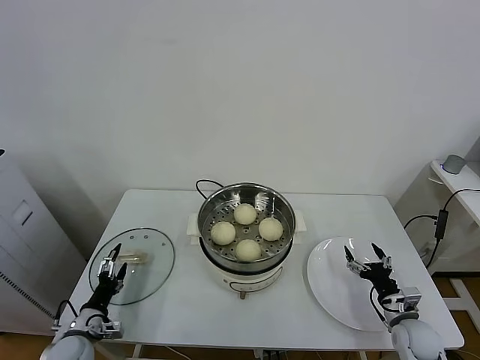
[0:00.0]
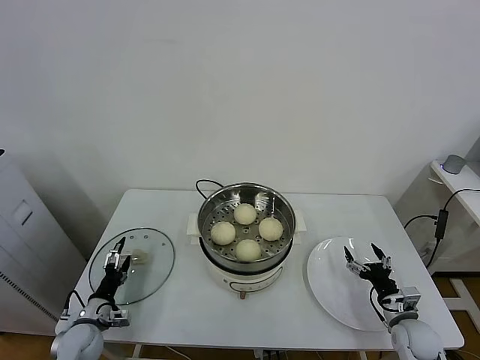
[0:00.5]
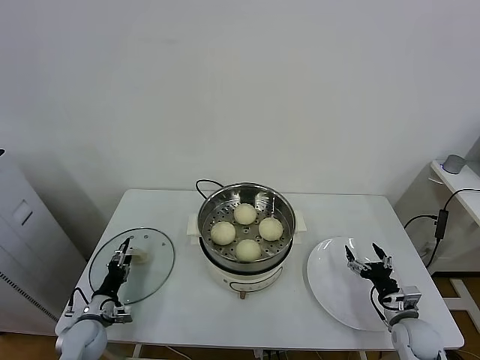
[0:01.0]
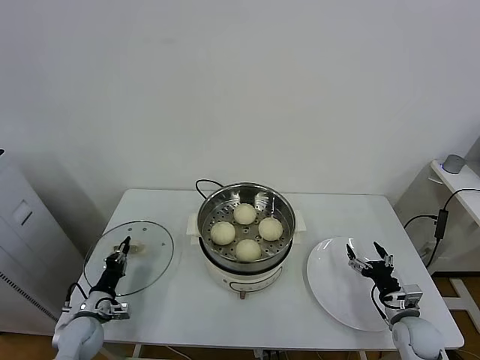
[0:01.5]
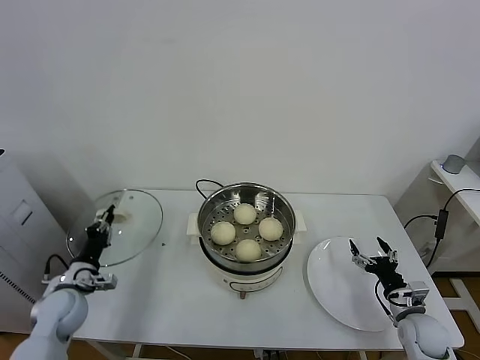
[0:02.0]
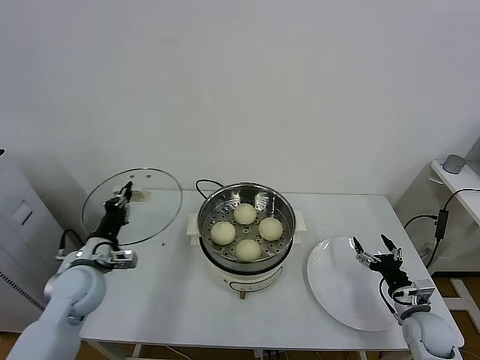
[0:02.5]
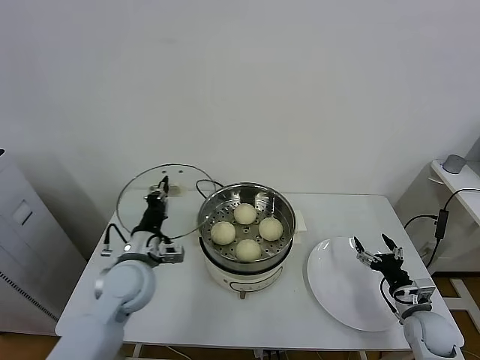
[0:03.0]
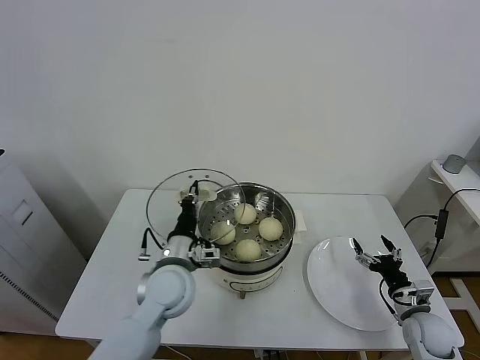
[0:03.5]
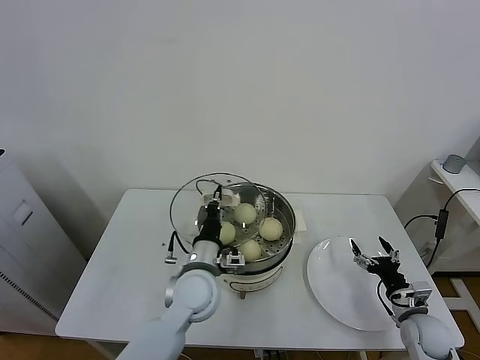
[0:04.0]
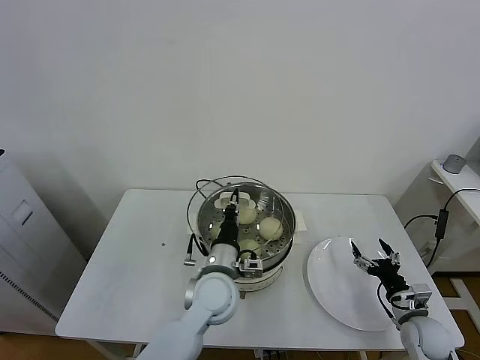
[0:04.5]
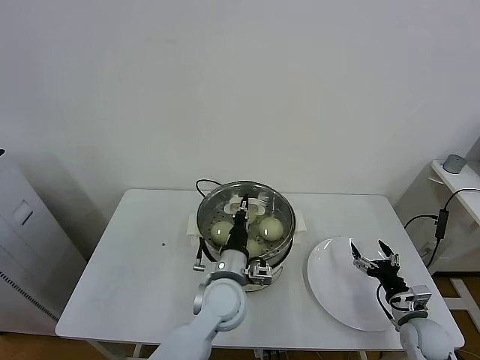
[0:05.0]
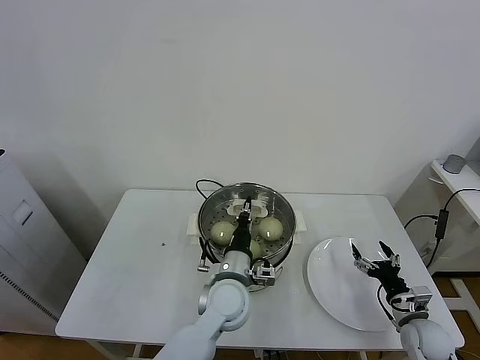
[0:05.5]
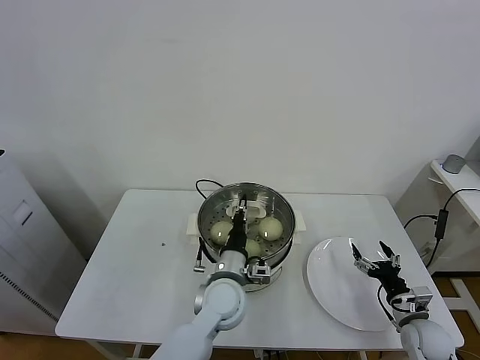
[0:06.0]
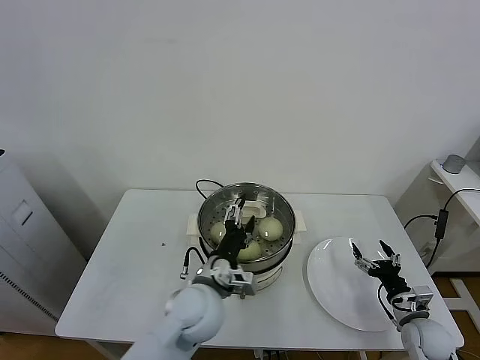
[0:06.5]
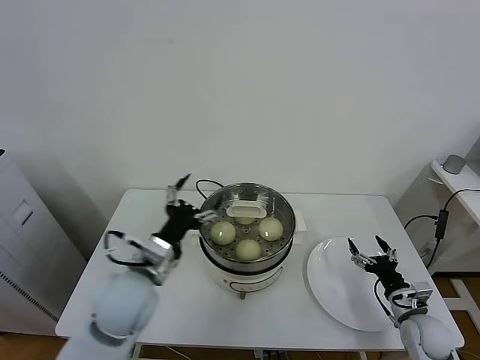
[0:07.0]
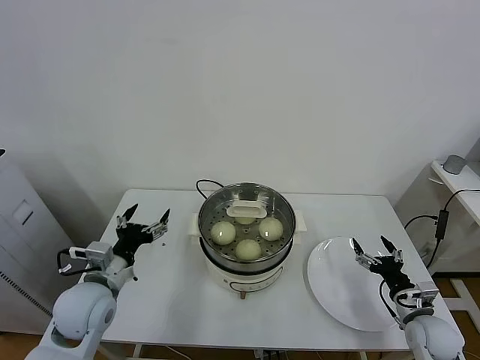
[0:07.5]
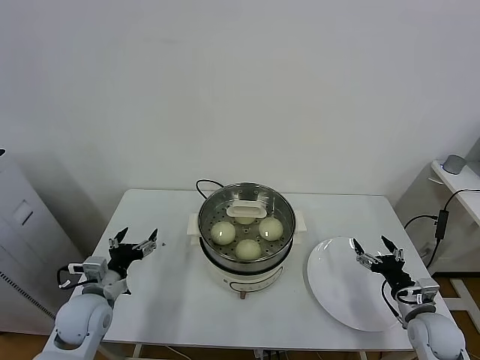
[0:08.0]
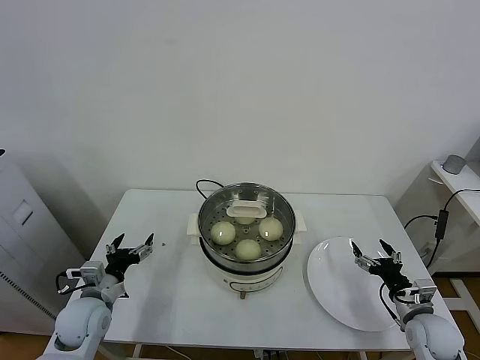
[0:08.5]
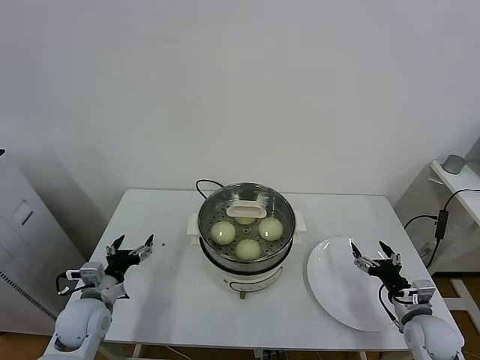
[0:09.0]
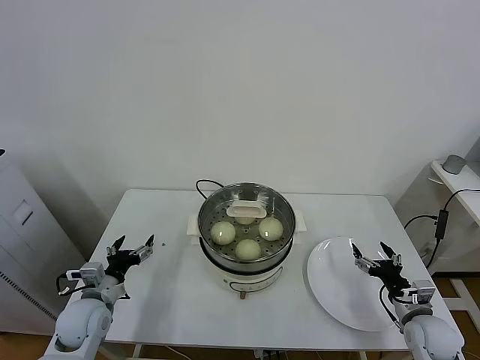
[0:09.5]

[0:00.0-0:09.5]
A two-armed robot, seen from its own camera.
Task of the whole recording: take steamed baozi put them in steamer.
Step, 0:02.0 to 0:06.0: Place the pot lid on the steamer with left gripper.
0:00.0 to 0:02.0: The left gripper travels upward and forward by about 10 cm, and closes.
0:02.0 to 0:04.0: The left gripper travels to the right by roughly 30 cm.
0:04.0 to 0:05.5: The left gripper moves to the right, some 5 cm.
0:05.5 to 0:07.5: The left gripper heads to the left, covering about 25 cm, and opens.
0:07.5 to 0:09.5: The left gripper is displaced downward and to the left by about 10 cm.

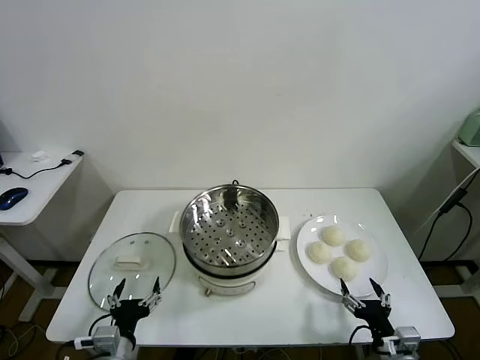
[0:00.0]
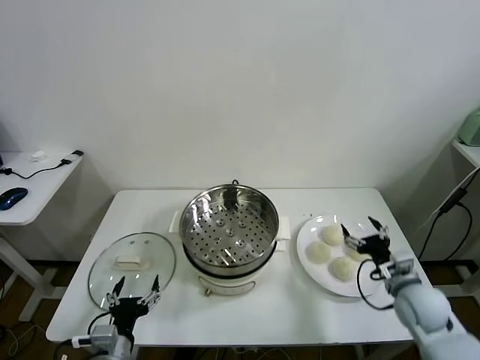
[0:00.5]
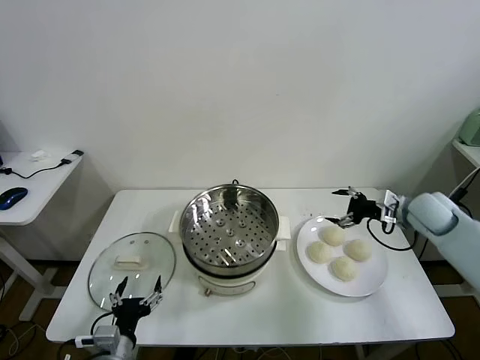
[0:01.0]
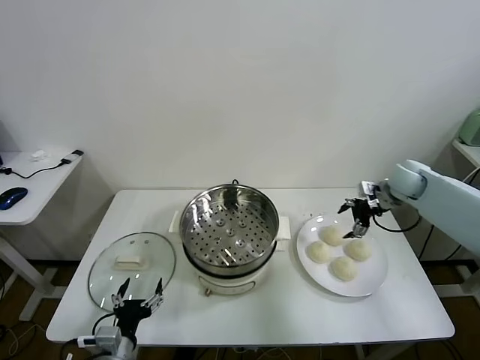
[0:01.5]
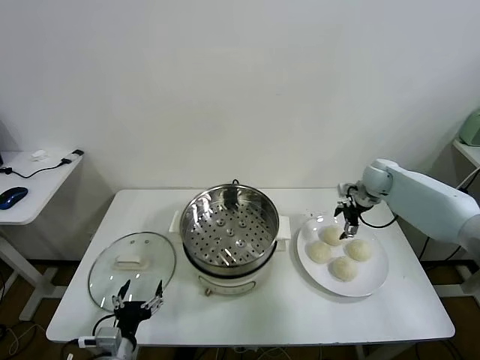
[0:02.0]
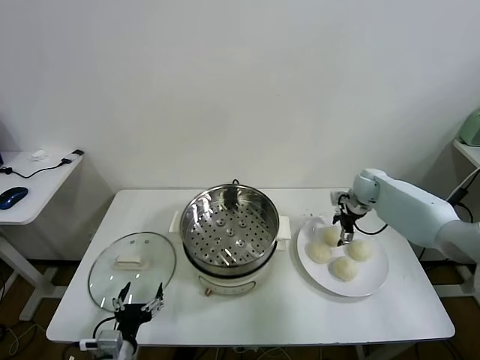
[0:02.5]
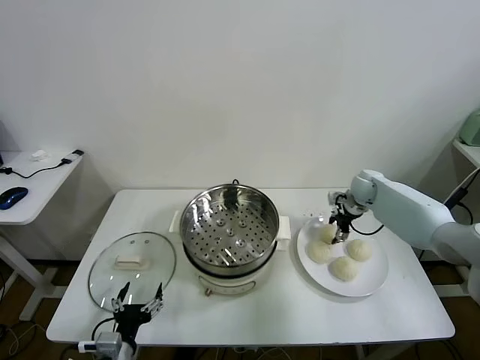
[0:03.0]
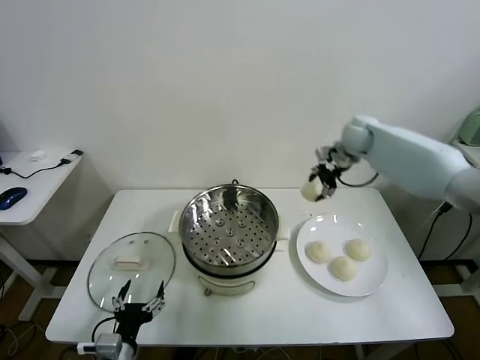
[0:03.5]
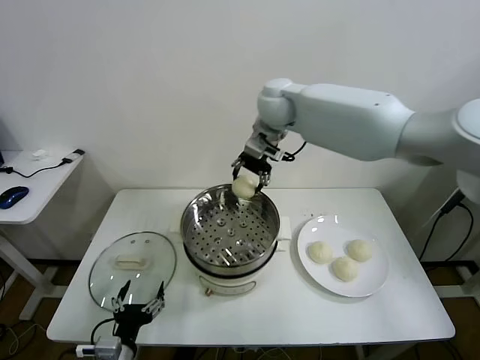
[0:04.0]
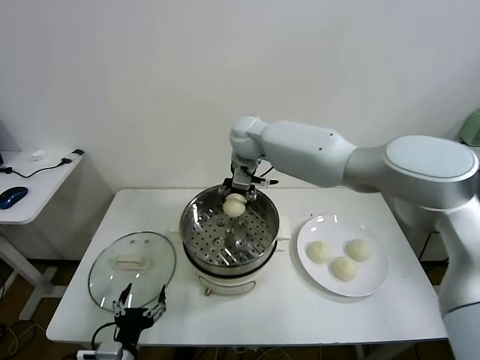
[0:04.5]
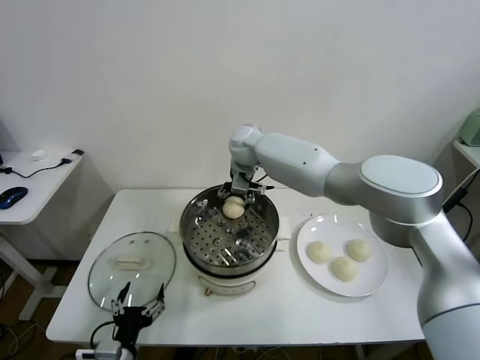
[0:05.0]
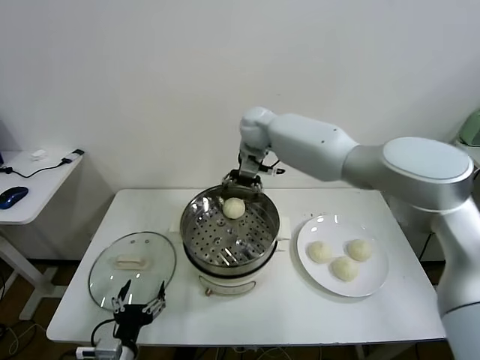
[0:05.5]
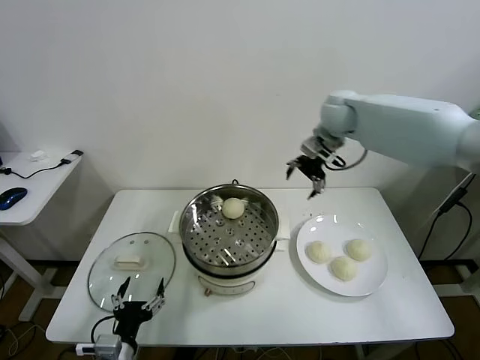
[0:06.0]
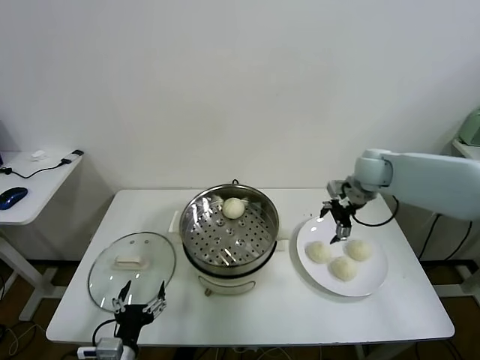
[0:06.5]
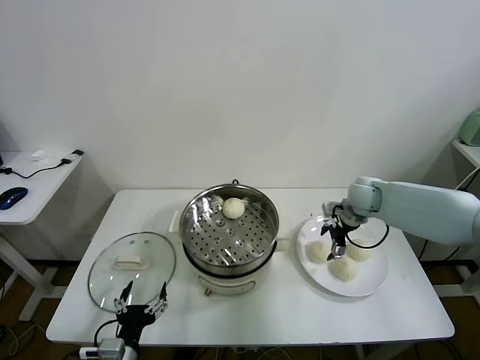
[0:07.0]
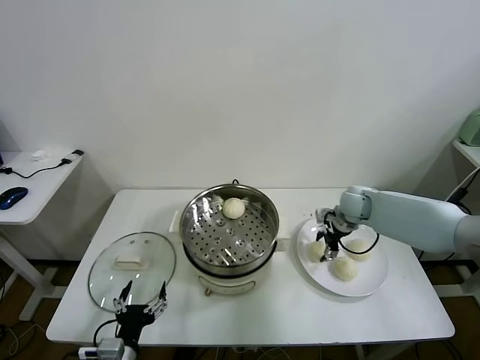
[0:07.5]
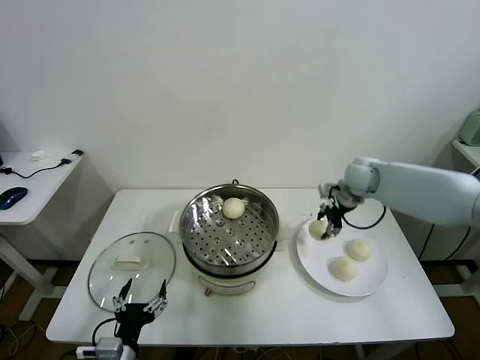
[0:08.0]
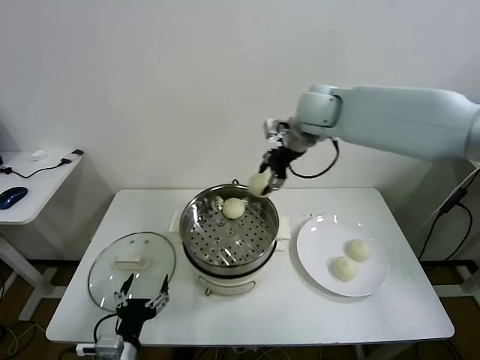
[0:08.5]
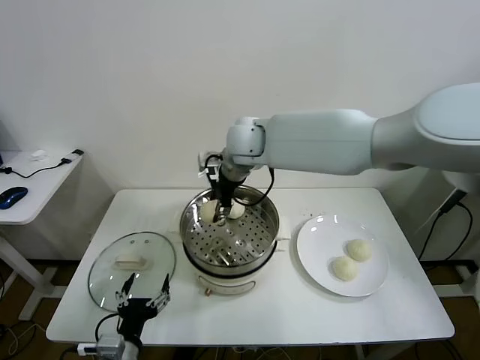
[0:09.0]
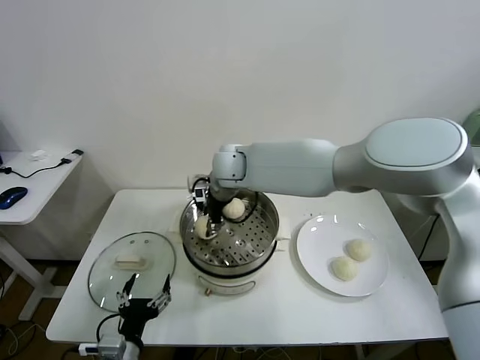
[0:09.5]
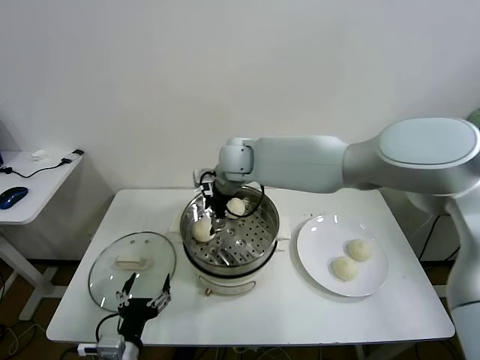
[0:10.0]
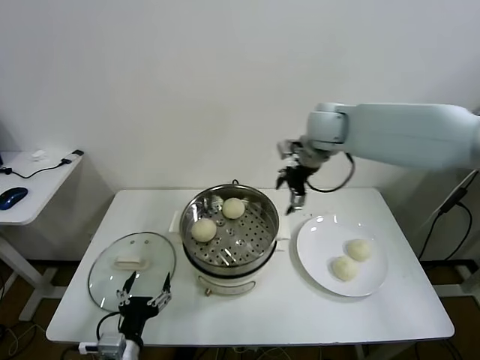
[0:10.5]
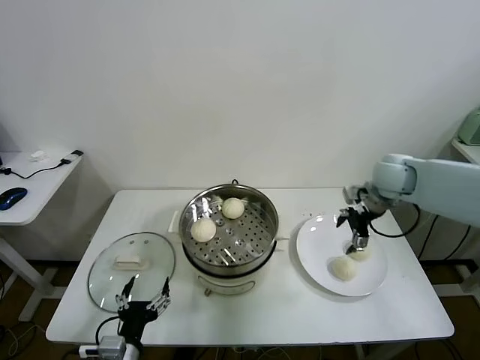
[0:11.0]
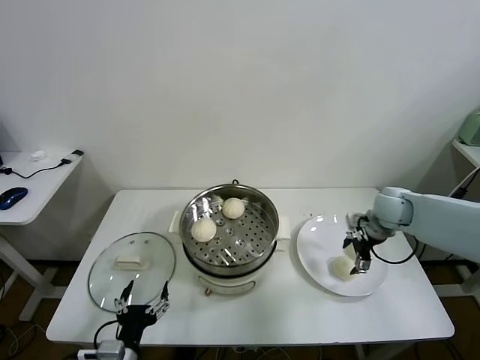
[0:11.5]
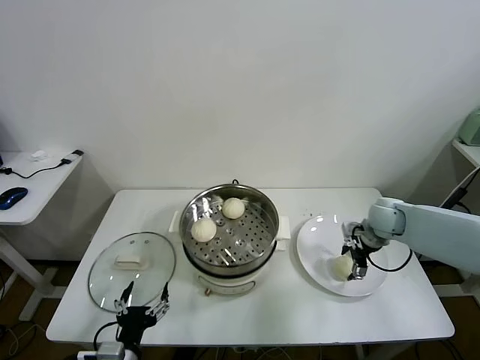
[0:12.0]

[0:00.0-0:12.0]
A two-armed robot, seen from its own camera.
Task of the whole recording: take steamed baozi put them in steamer.
Step, 0:00.0 to 0:02.5: Grasp the baozi in the plate with right gripper.
Step, 0:03.0 to 0:05.0: Place the baozi on the steamer with right gripper.
Step, 0:05.5 to 0:07.5: Grasp the baozi in the plate with right gripper.
Step, 0:08.0 to 0:09.5: Place the baozi on the steamer with right gripper.
0:02.0 to 0:04.0: The right gripper heads to the left and upward, covering roughly 40 cm, and closes up.
0:04.0 to 0:06.0: The right gripper moves to the right, about 20 cm, and opens up.
0:06.0 to 0:08.0: The right gripper shifts approximately 10 cm downward, and closes its fingers.
0:08.0 to 0:10.0: The right gripper travels to the left by roughly 30 cm, and opens its fingers.
0:10.0 to 0:12.0: The right gripper goes about 40 cm to the right and downward.

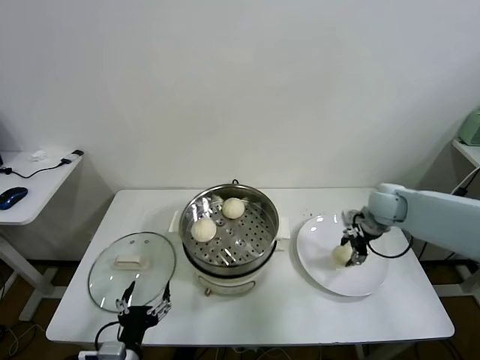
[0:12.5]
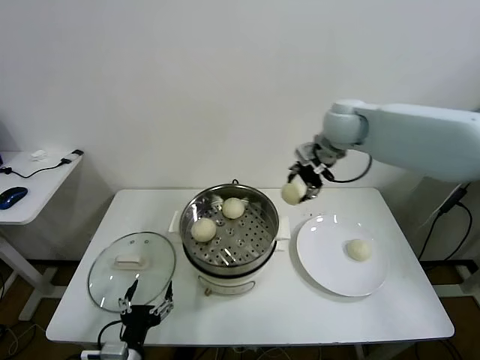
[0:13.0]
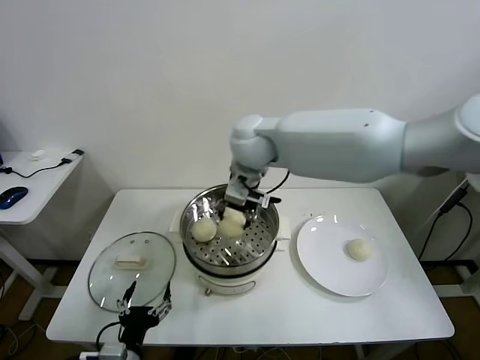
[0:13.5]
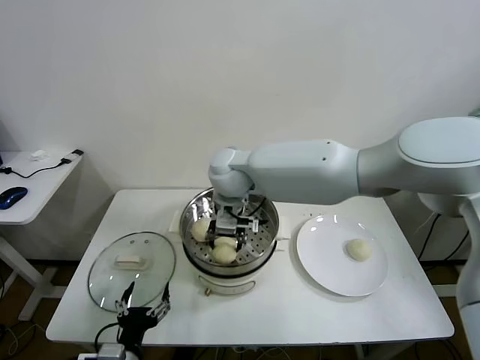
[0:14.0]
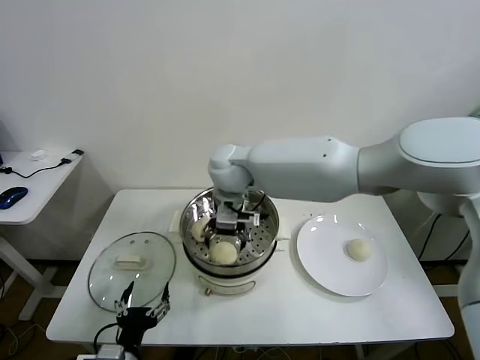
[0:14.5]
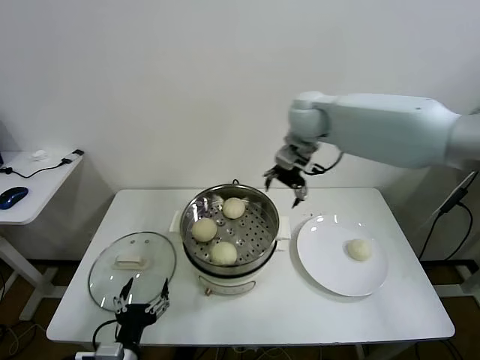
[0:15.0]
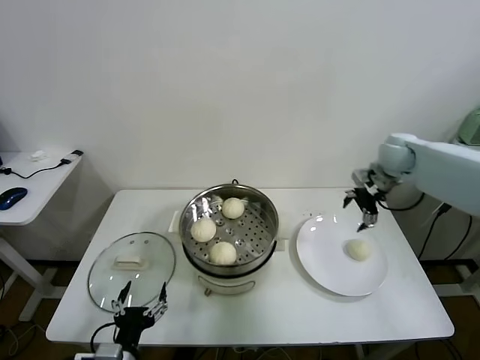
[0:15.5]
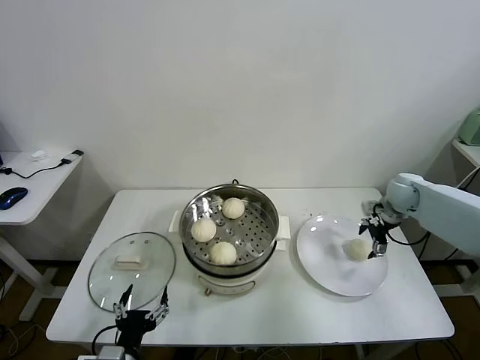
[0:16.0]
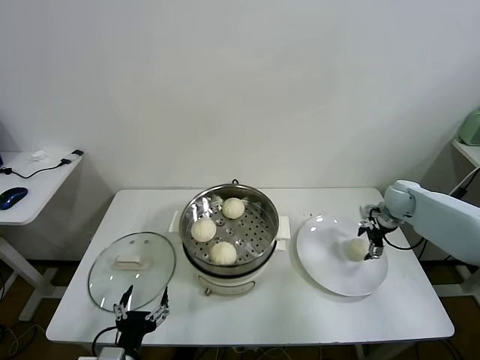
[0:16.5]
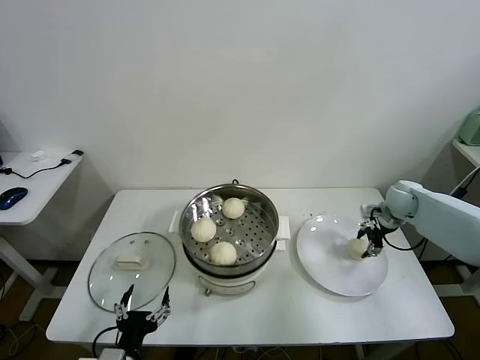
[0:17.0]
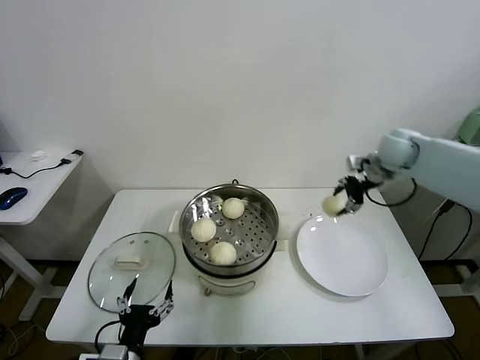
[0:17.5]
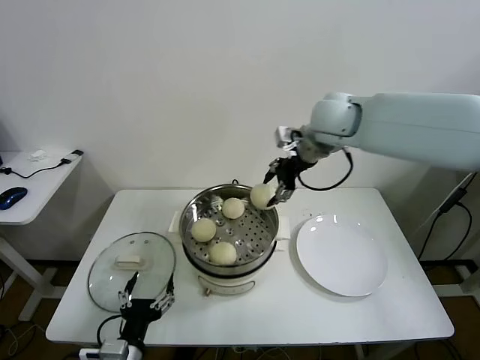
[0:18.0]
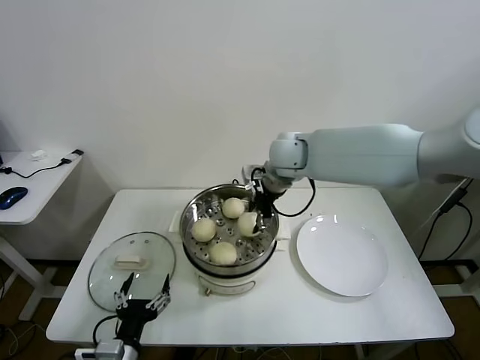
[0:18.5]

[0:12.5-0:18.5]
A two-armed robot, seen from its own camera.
Task of the whole recording: take steamed baozi put them in steamer.
Step, 0:12.5 to 0:14.0: Place the baozi on the steamer with right gripper.
Step, 0:14.5 to 0:16.5: Grasp the baozi in the plate with right gripper.
0:12.5 to 0:14.5: The right gripper goes about 35 cm to the left, and opens up.
0:14.5 to 0:16.5: The right gripper shifts roughly 40 cm to the right.
0:16.5 to 0:18.5: The right gripper is displaced to the left and upward by approximately 35 cm, and closes.
